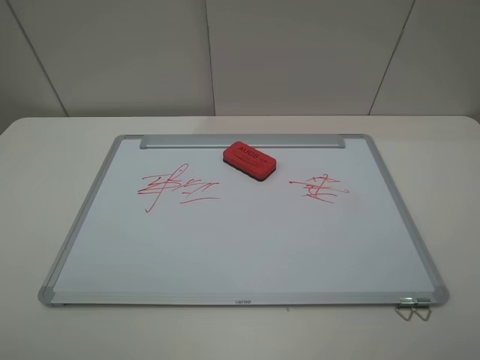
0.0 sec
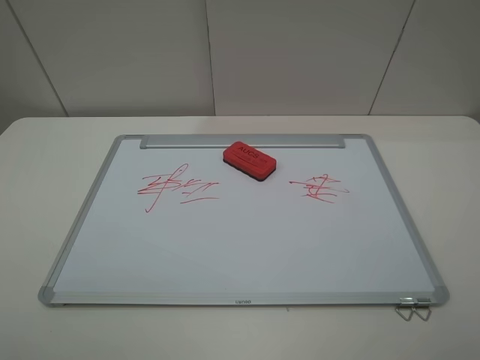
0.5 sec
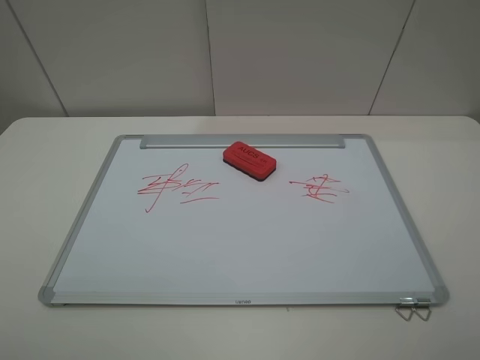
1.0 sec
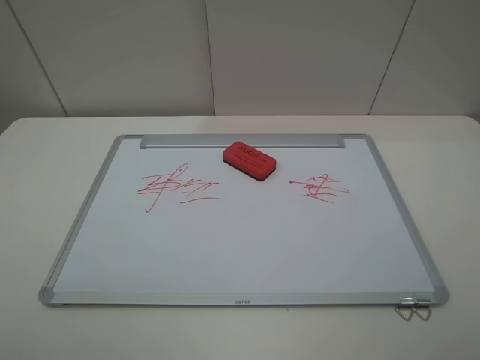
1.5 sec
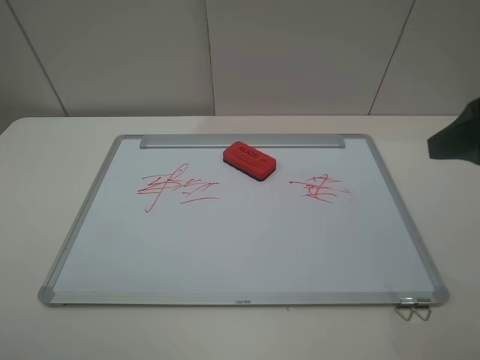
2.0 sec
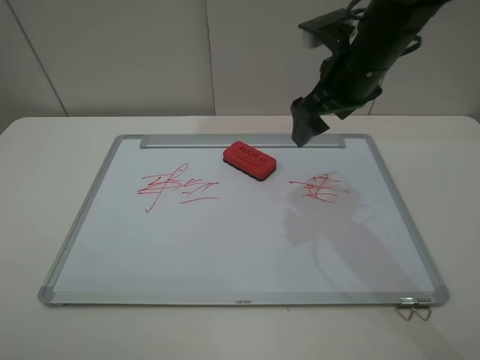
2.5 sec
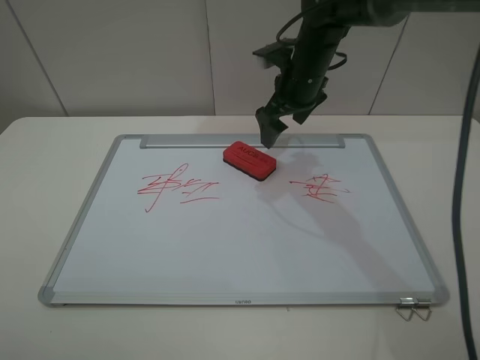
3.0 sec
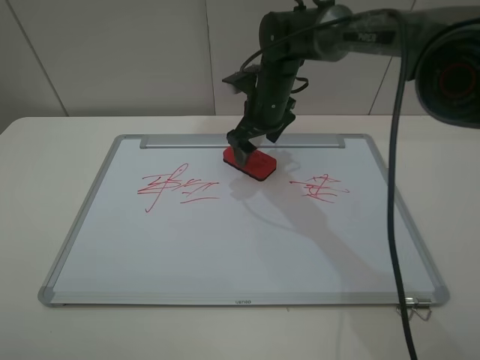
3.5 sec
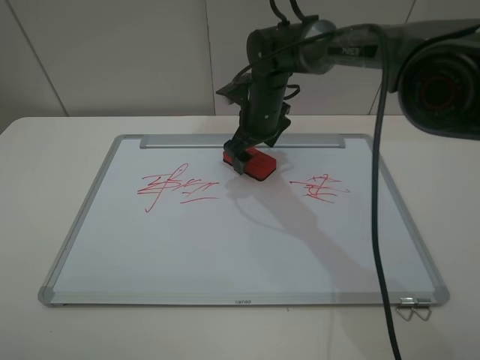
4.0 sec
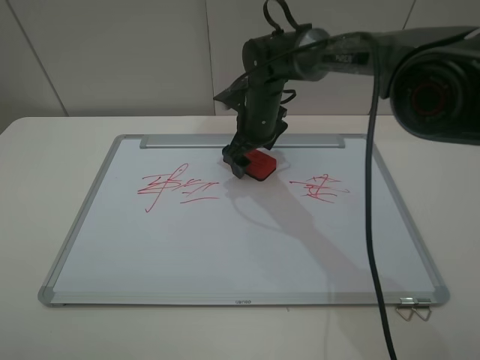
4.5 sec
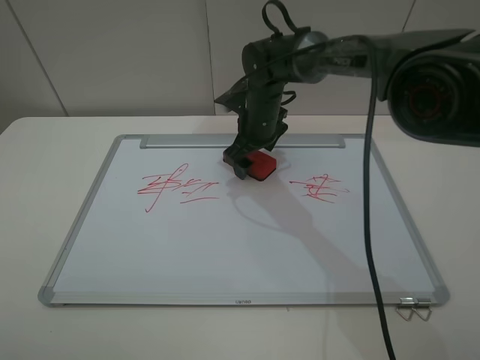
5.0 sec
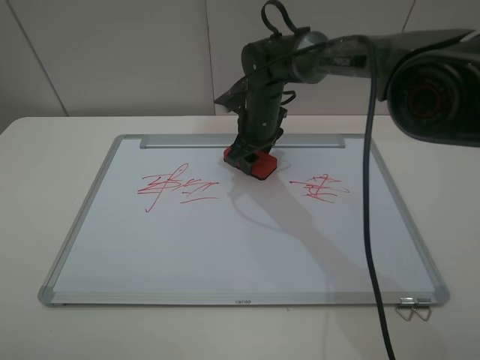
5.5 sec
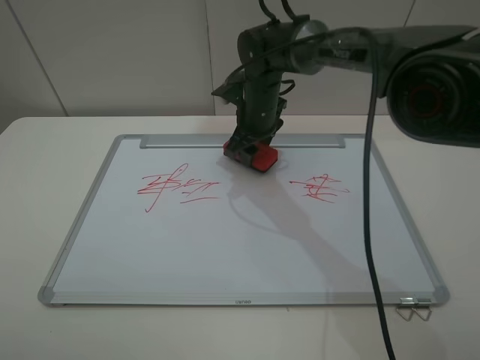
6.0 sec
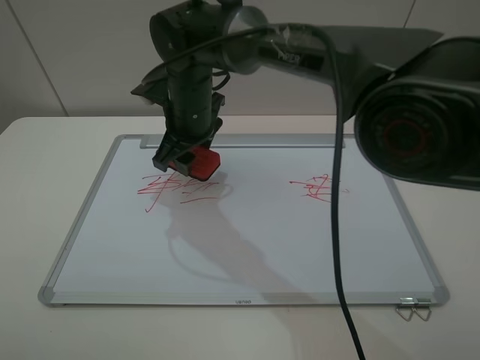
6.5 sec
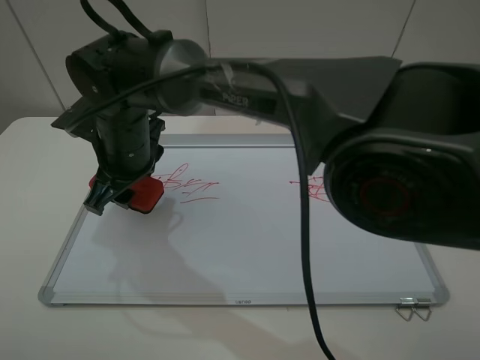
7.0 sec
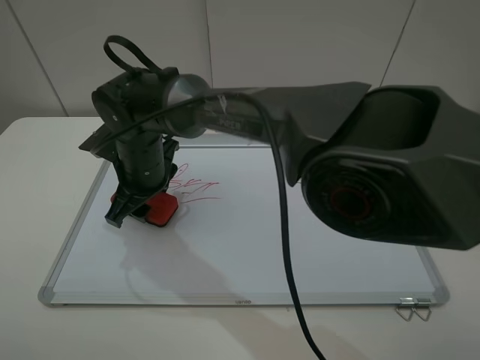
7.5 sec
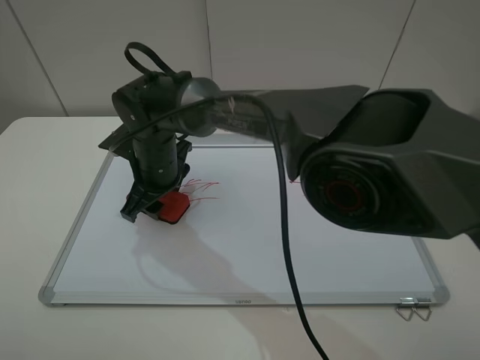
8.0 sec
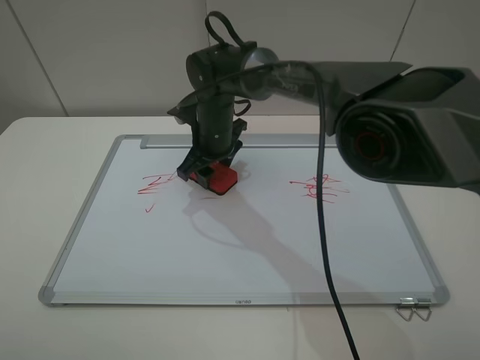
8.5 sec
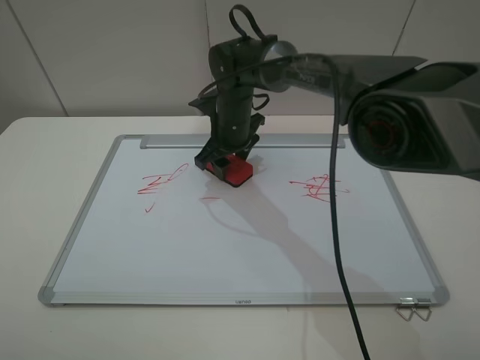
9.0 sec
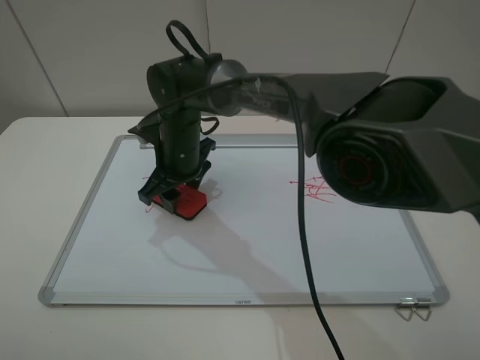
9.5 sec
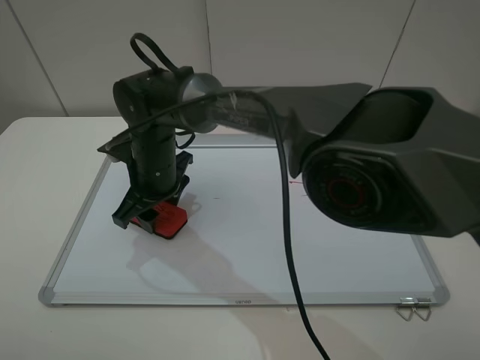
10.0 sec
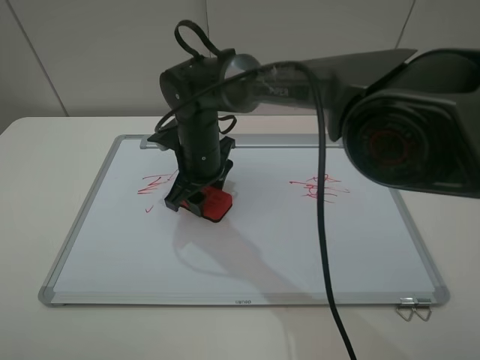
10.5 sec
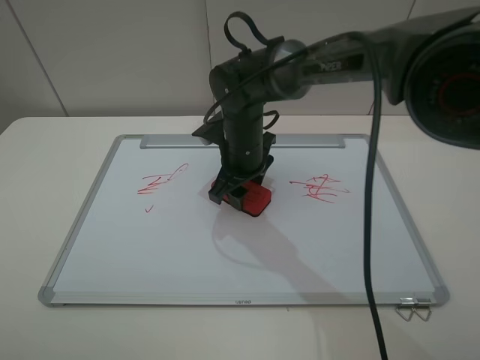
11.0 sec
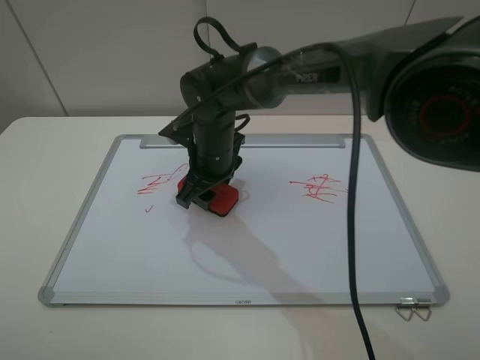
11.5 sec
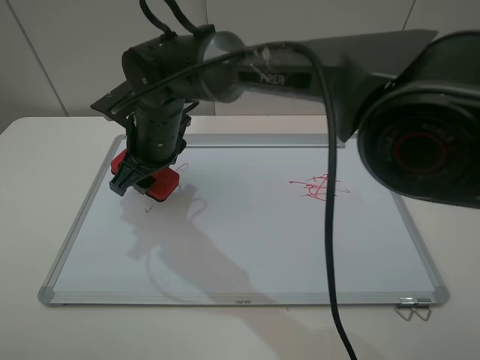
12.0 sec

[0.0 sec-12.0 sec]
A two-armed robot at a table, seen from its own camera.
Step, 0.0 sec to 5.0 sec: Grasp the eraser with the right gripper.
0.0 sec to 2.0 sec: The right gripper moves forward, about 20 cm.
2.0 sec to 4.0 sec: The right gripper heads forward, to the left and downward, covering about 40 cm.
4.0 sec to 6.0 sec: The right gripper closes its fingers.
6.0 sec to 8.0 sec: The right gripper moves to the left and backward, about 20 cm.
8.0 sec to 10.0 sec: The right gripper goes to the right and returns, about 10 cm each way.
10.0 sec to 12.0 sec: The right gripper reaches about 15 cm to the right, then returns.

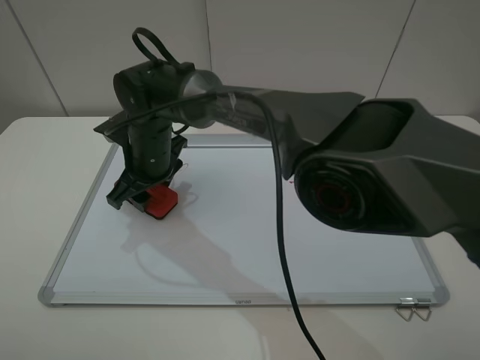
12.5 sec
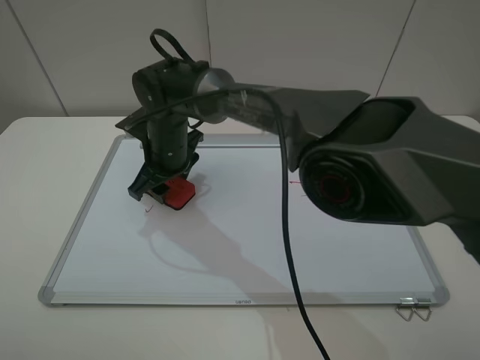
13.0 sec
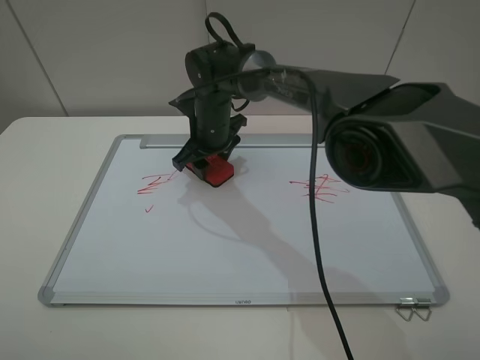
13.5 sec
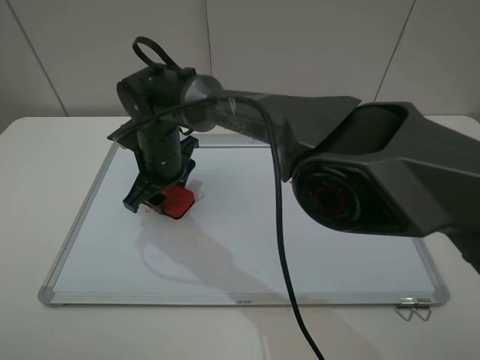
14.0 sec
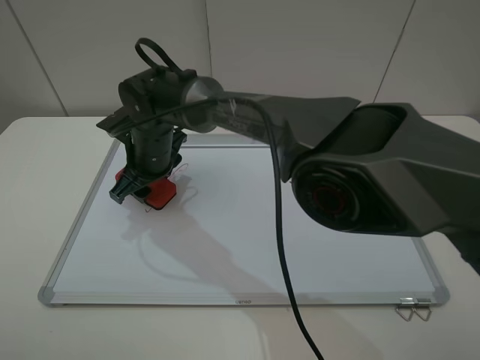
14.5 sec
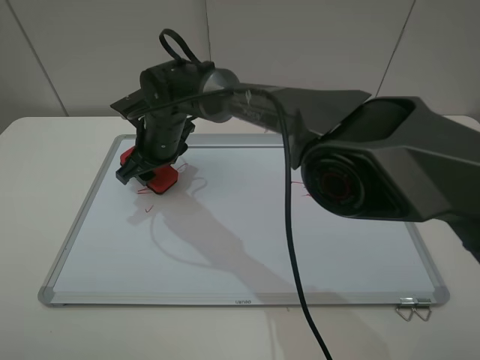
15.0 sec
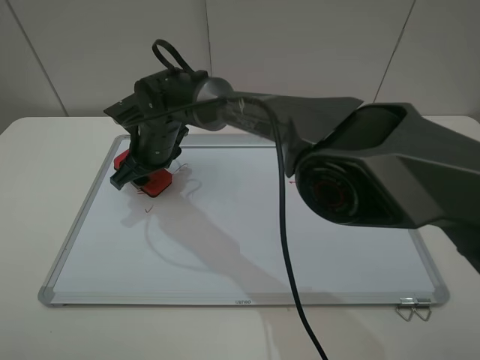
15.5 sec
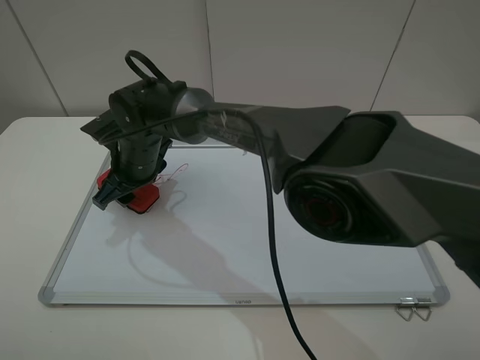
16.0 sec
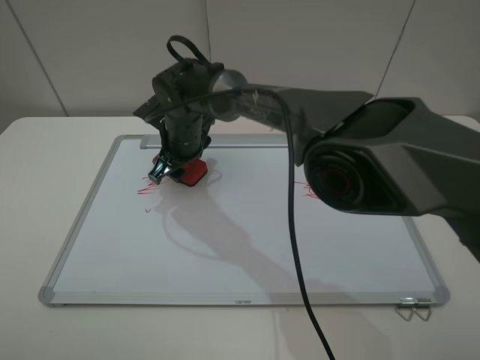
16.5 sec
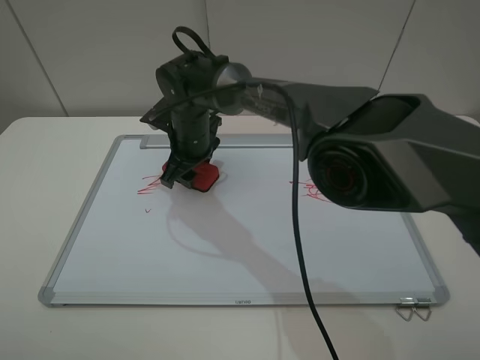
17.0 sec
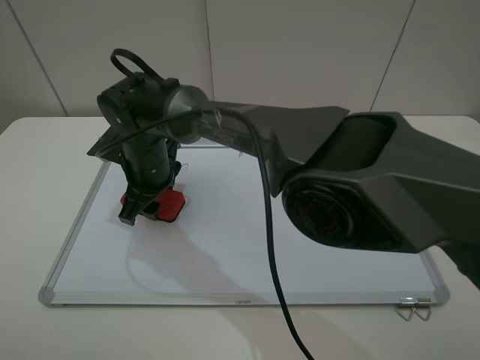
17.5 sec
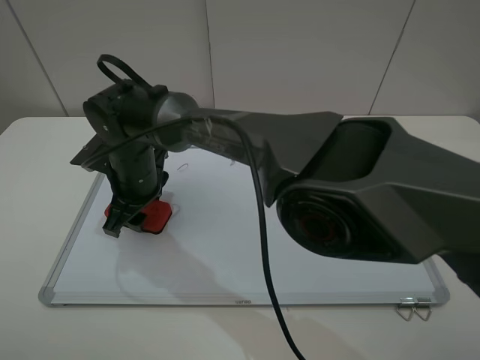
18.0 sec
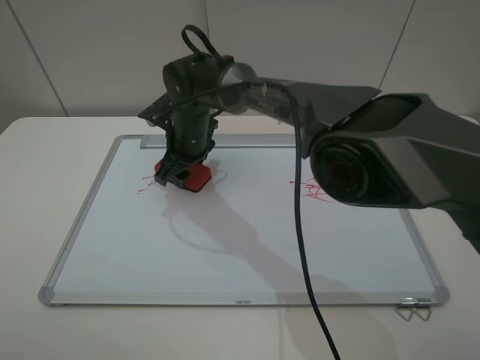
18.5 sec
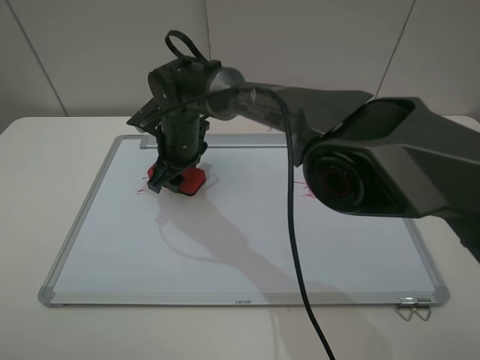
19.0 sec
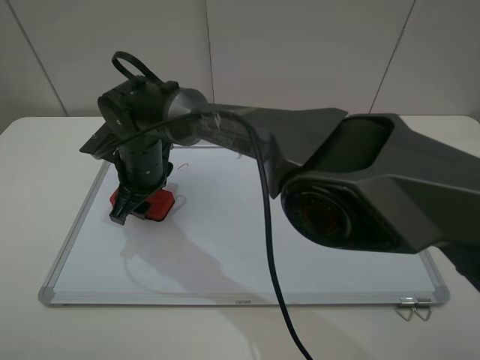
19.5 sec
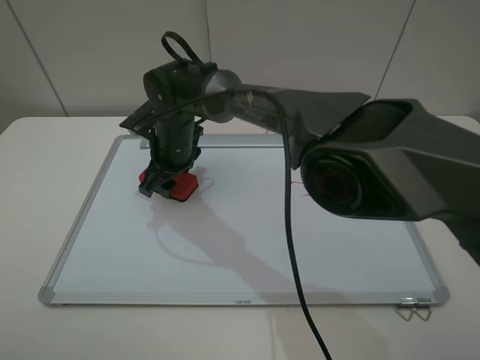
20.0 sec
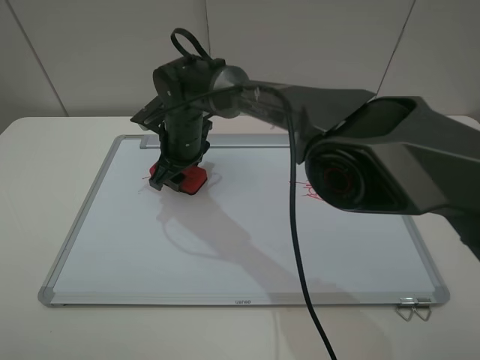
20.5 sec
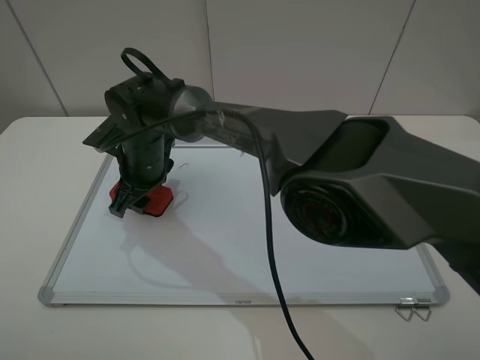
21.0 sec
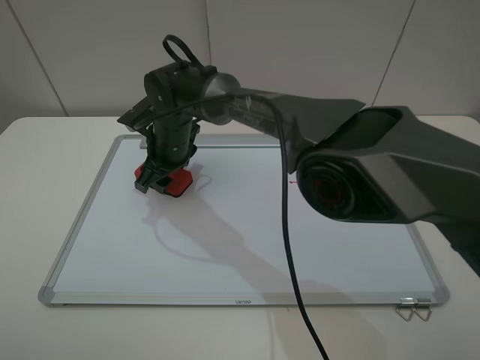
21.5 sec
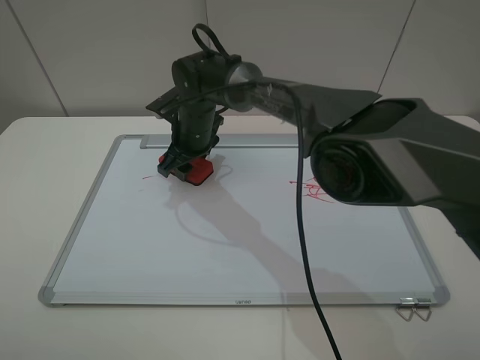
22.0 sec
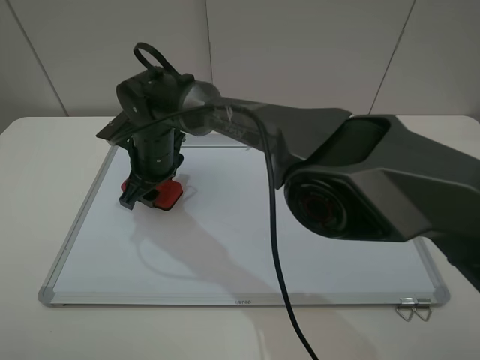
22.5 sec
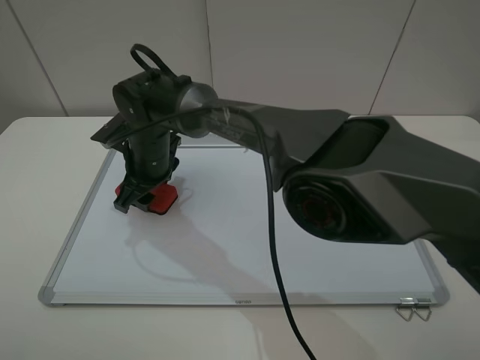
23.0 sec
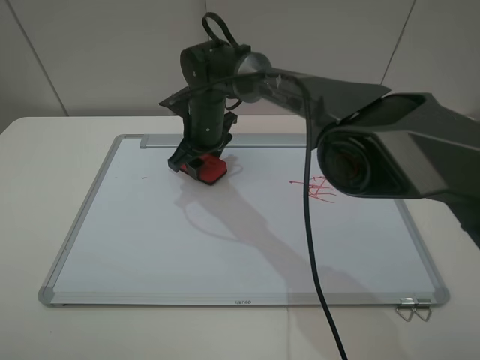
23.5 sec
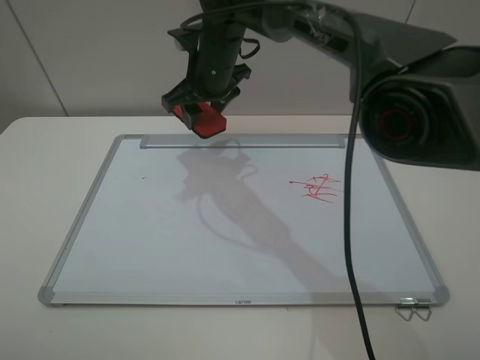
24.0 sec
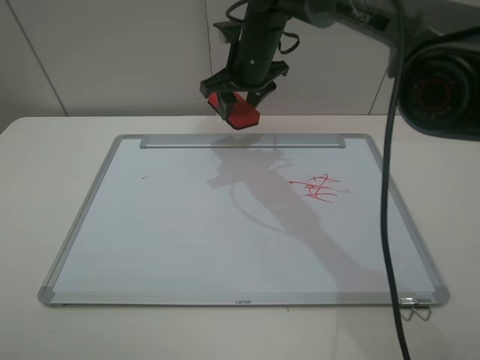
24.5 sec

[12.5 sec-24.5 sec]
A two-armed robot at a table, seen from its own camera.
Step, 12.5 sec to 23.5 sec: Grasp the eraser and wipe the blackboard with the right gripper.
12.5 sec to 14.5 sec: The right gripper travels to the right and back again, approximately 10 cm each way.
14.5 sec to 16.5 sec: The right gripper changes place by about 5 cm.
16.5 sec to 18.5 sec: The right gripper travels backward and back again, about 10 cm each way.
20.5 sec to 22.5 sec: The right gripper swings forward and backward, some 5 cm each way, with 2 reversals.
22.5 sec to 24.5 sec: The right gripper goes some 20 cm to the right, upward and forward.

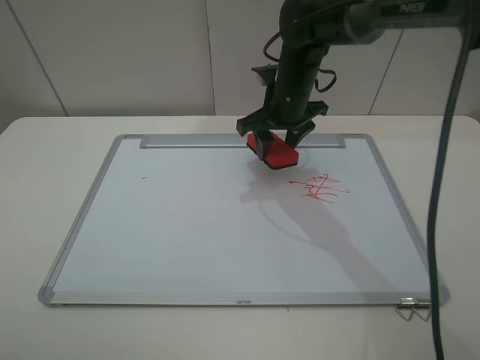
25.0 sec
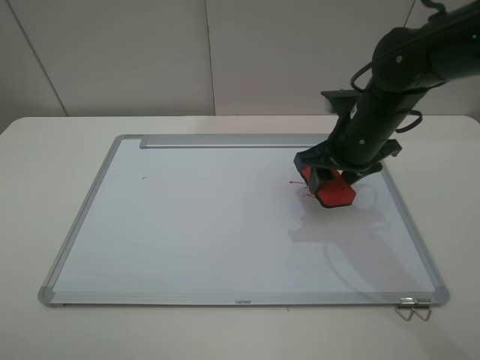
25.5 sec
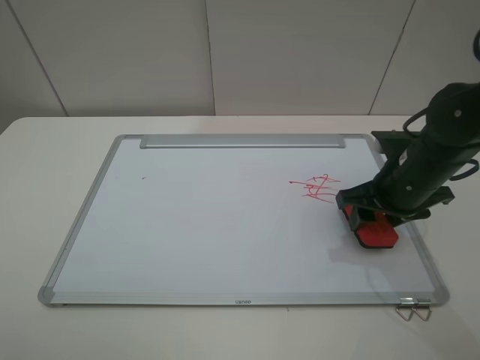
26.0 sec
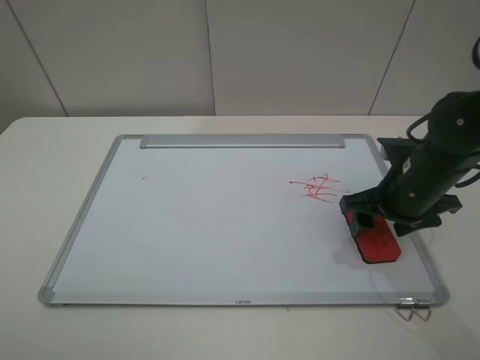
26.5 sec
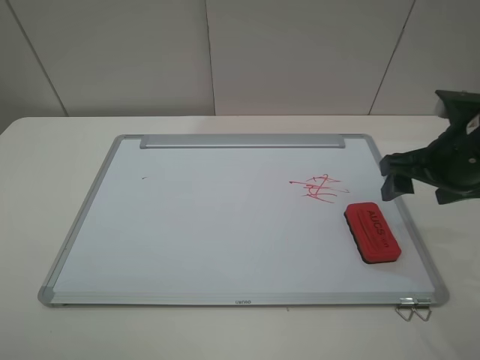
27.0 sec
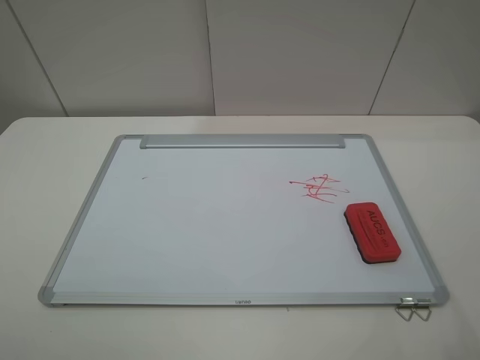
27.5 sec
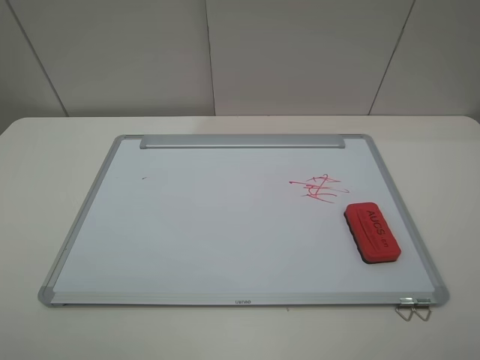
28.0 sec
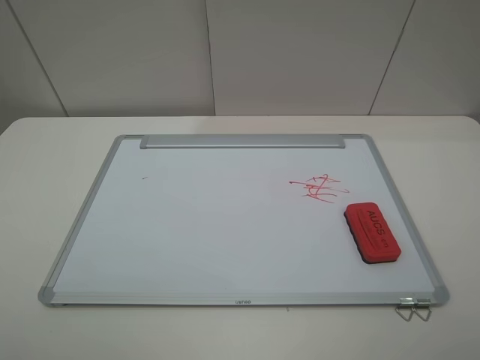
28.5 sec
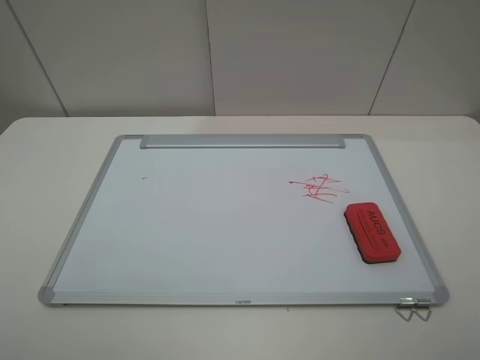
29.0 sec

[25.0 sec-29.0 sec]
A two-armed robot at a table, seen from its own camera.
Step, 25.0 sec to 26.5 sec: Place the eraser with the right gripper.
25.0 sec to 27.0 sec: The right gripper is displaced to the right and backward by about 25 cm, and opens its fingers.
27.0 sec to 29.0 sec: The right gripper moves backward, some 25 cm.
